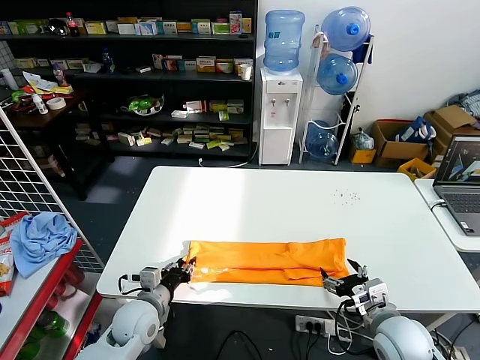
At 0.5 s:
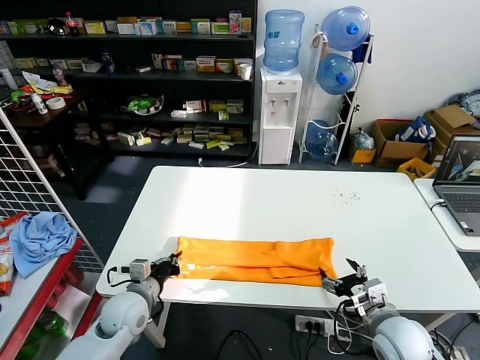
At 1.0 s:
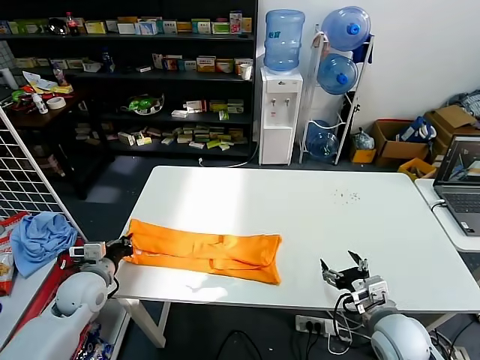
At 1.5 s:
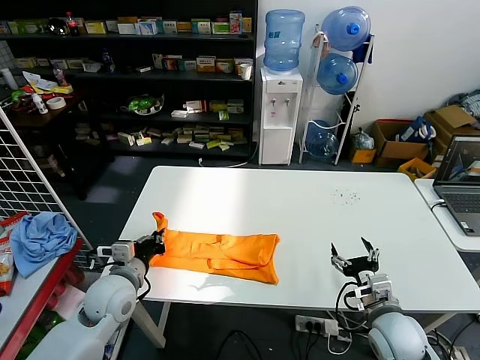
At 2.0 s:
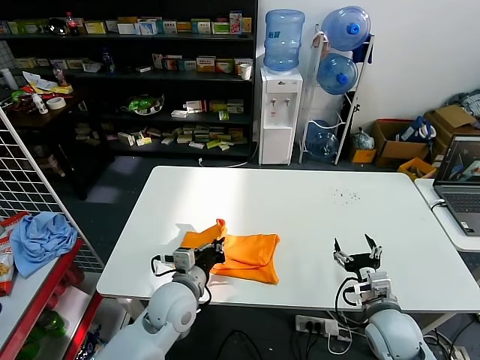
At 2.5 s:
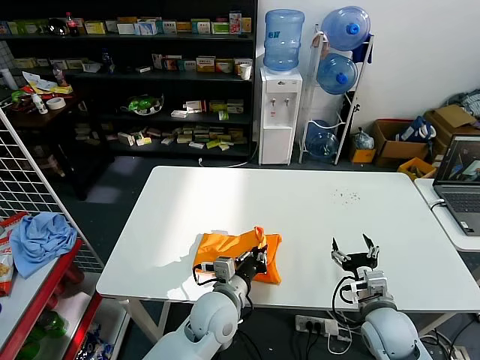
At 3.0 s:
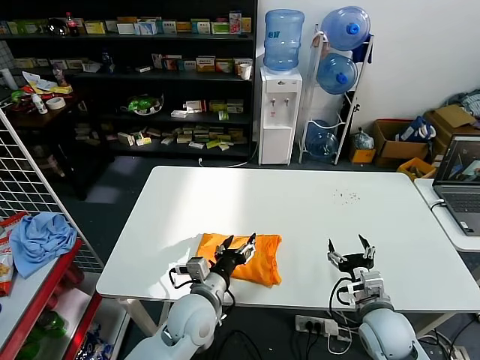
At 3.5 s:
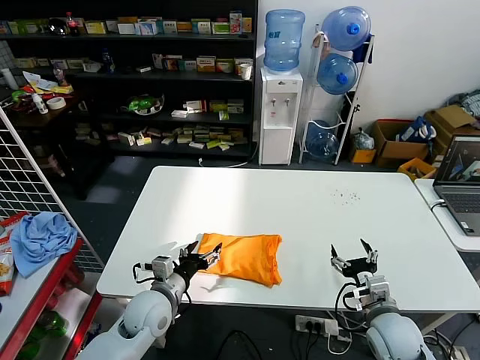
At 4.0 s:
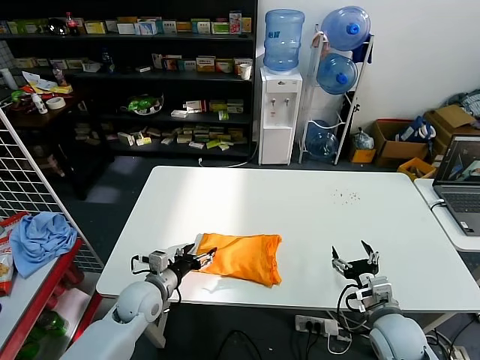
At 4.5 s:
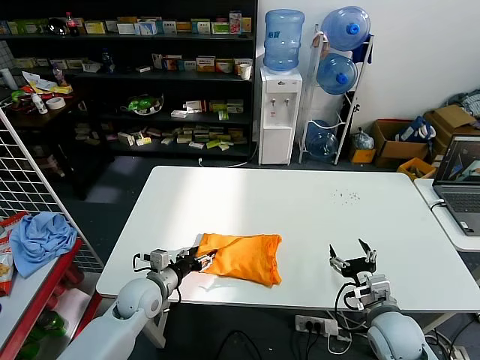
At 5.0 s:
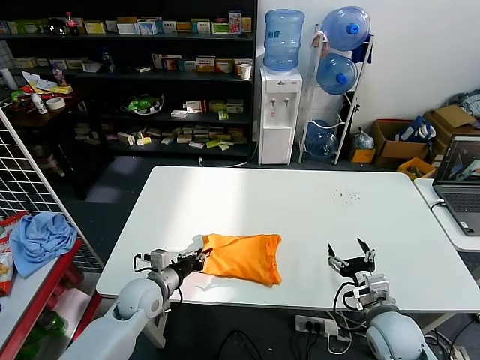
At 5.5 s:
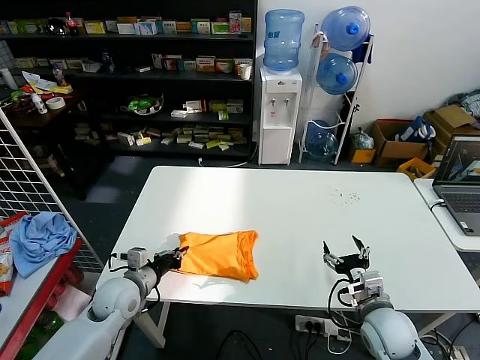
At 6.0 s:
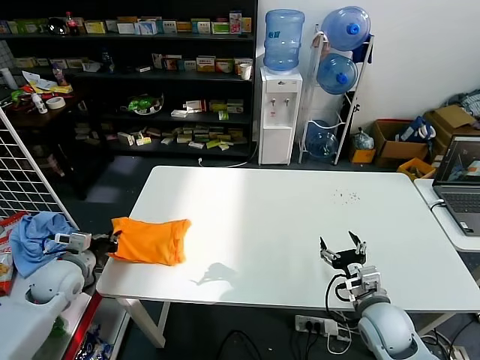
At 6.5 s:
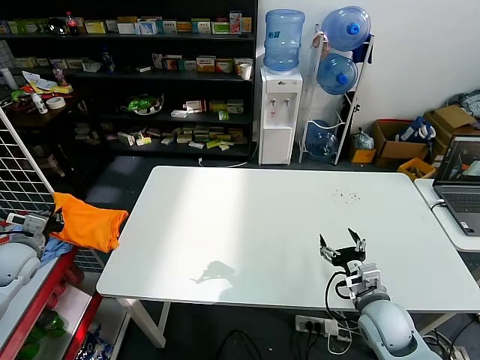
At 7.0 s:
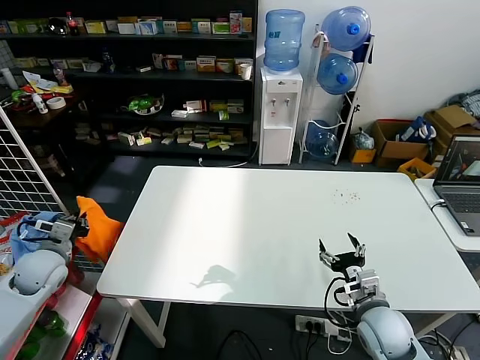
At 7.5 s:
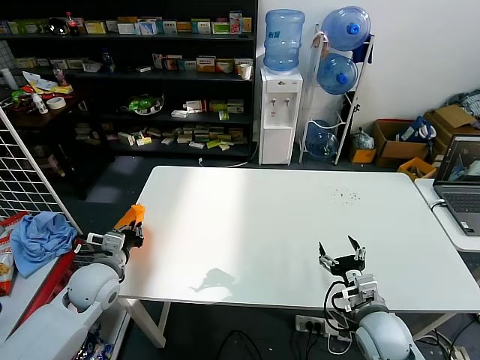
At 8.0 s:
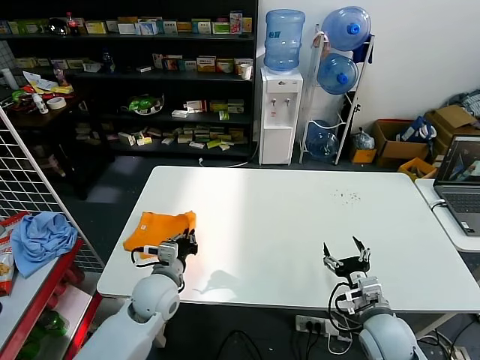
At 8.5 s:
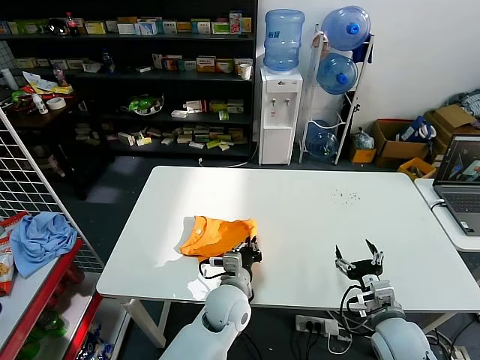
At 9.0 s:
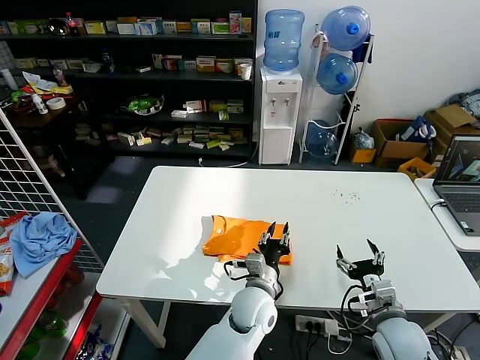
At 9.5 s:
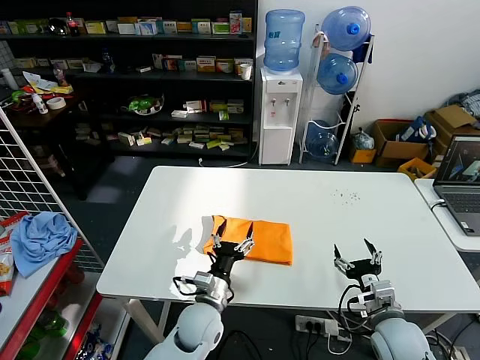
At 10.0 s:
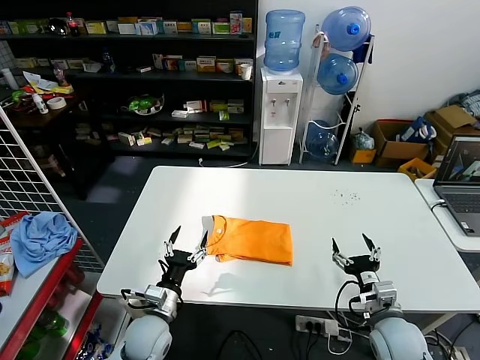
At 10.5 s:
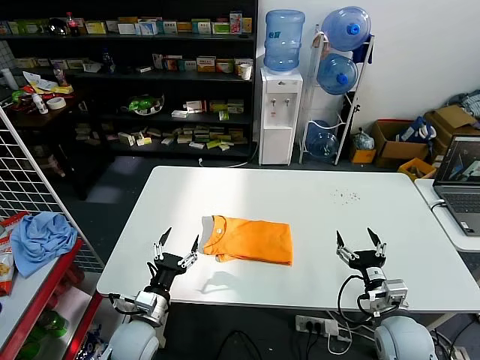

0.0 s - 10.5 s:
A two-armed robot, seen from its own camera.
Task of the whole recording: fold and organize the clothes.
Step, 0.5 s - 2.5 s: use the left gripper to drag the left edge of the fabric to the left and folds it over the right edge.
Step, 3.0 s - 9.0 s: Flip the folded clothes over with left gripper.
0.0 s - 2.0 s: The left gripper heads to the right and upward, covering approximately 10 cm, and closes its fingers.
2.0 s - 4.0 s: The left gripper shifts about 10 cm to the left and downward, and opens its fingers.
4.0 s - 6.5 s: The left gripper travels to the left and upward by some 30 cm, and closes up.
6.5 s - 8.5 s: The left gripper moves to the right, approximately 40 cm.
8.5 s - 10.5 s: The left gripper goes approximately 20 cm to the left, and opens.

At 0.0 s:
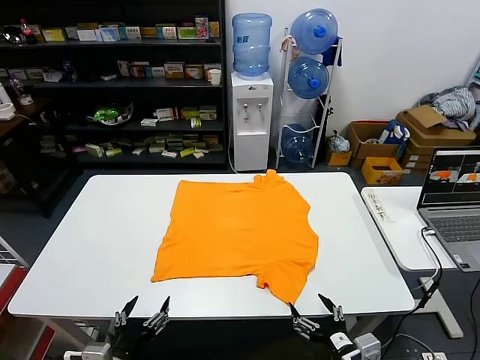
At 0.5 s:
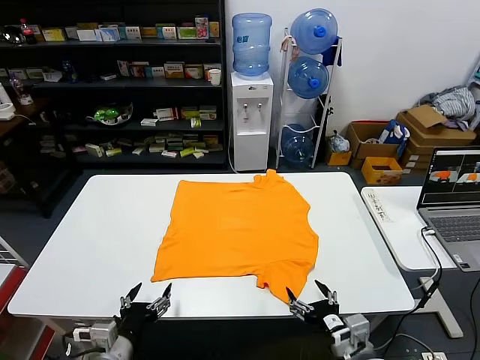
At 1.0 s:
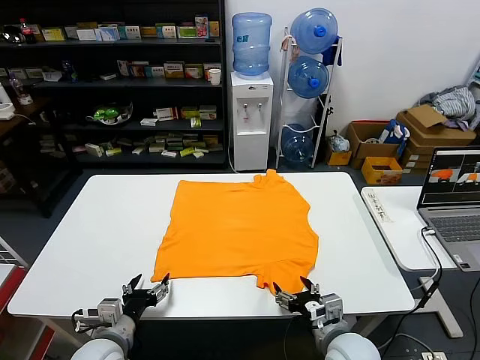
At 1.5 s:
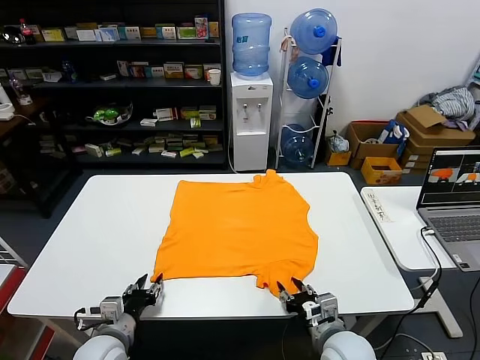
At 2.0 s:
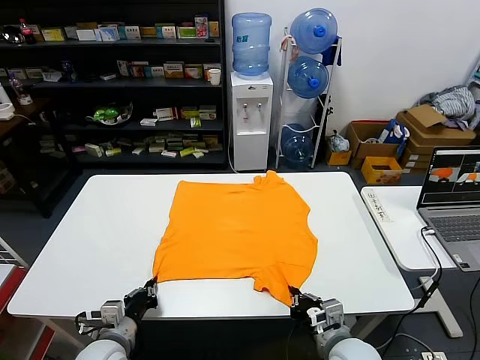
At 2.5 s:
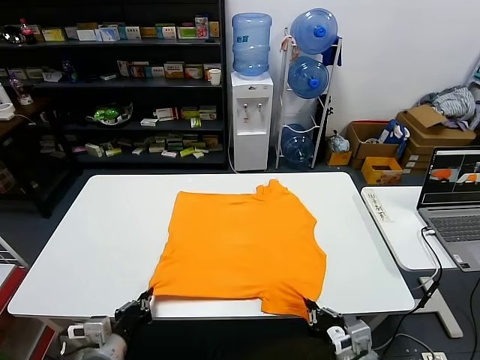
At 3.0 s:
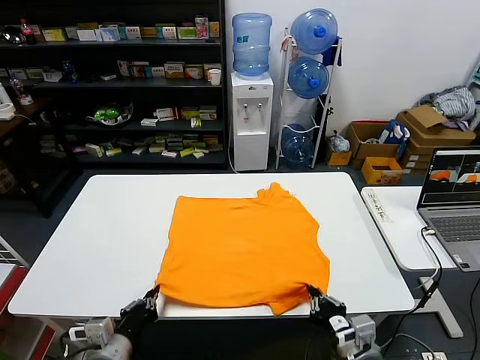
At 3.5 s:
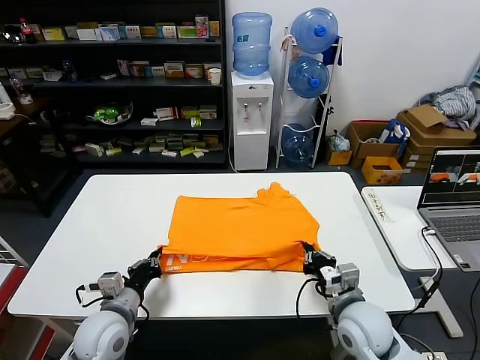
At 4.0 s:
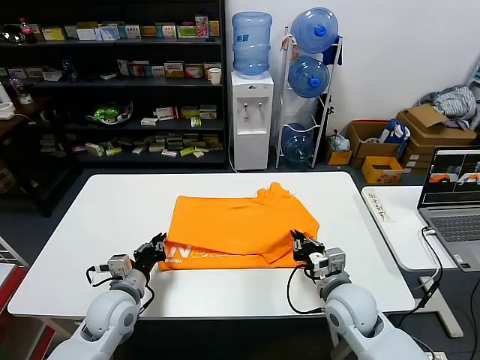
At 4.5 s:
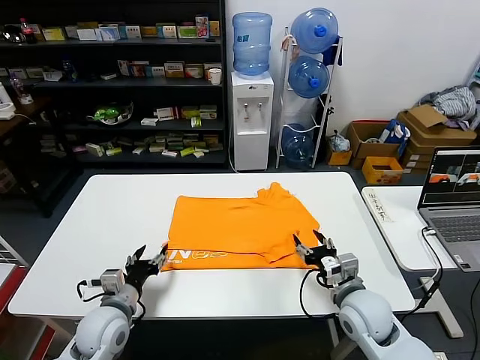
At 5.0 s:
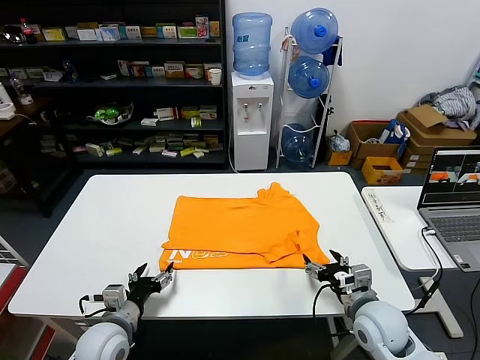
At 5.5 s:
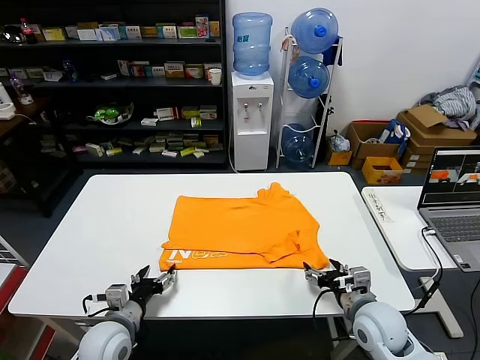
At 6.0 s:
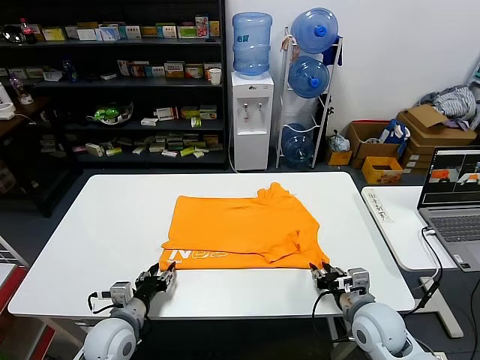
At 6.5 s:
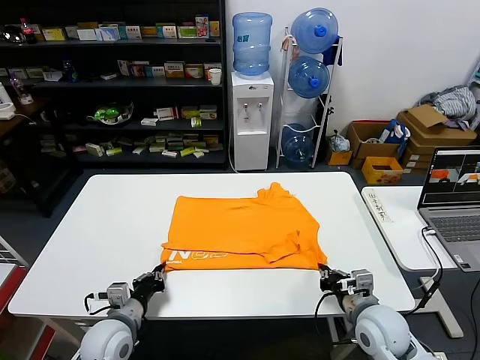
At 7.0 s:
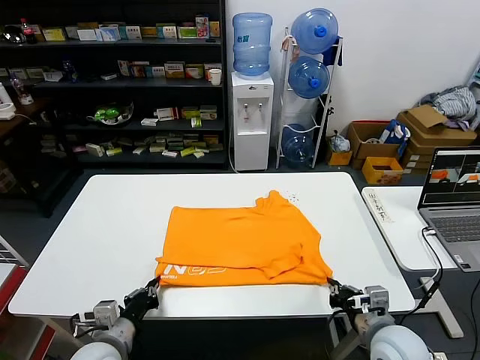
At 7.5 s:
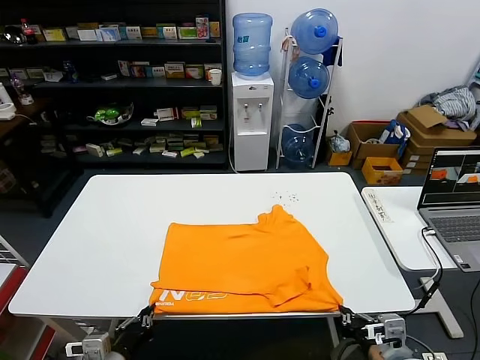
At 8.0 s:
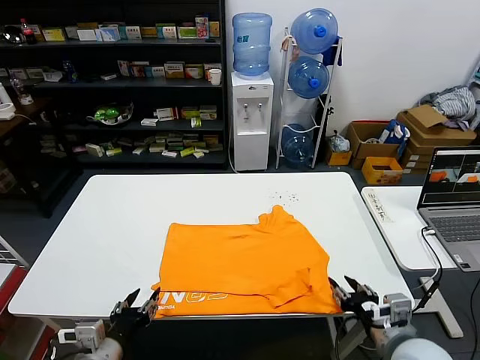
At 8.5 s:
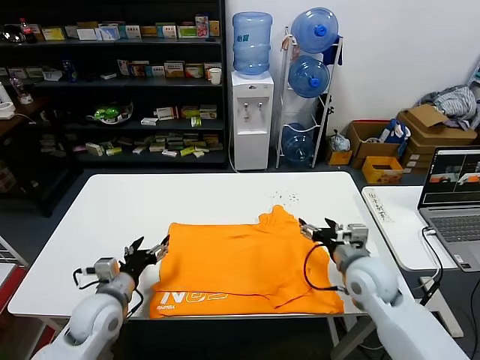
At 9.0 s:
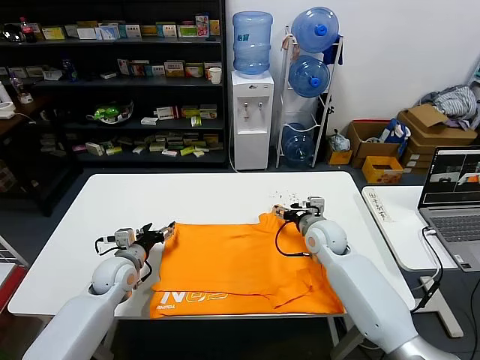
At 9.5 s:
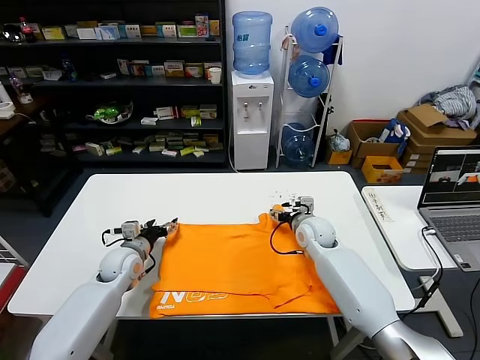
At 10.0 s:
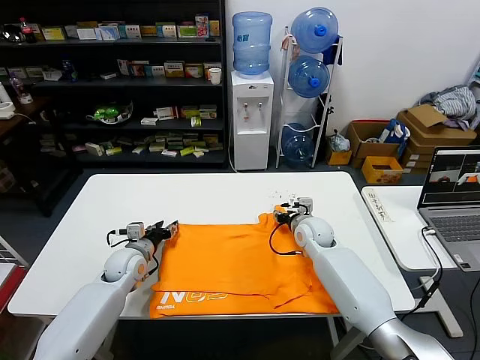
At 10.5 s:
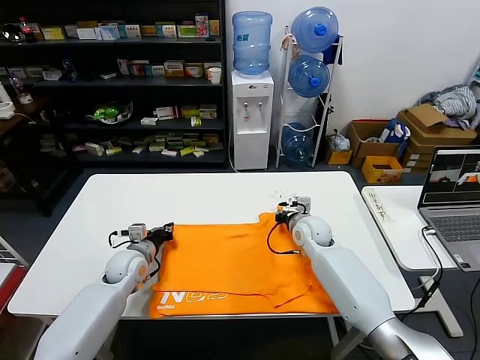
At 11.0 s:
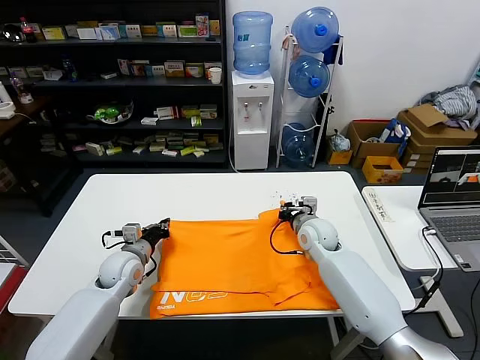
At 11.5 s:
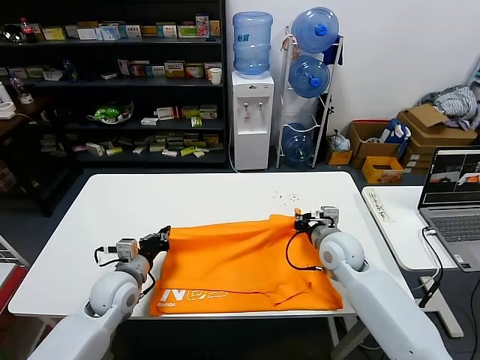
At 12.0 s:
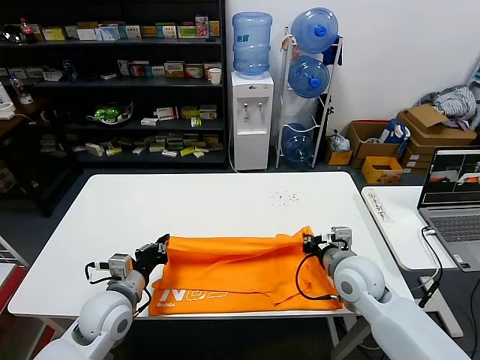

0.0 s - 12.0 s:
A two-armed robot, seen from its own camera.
Task of the whole recording: fold and organize the clothes.
Step, 0.0 s - 2.0 s: use both grippers simultaneously to clamp the lower edge of the clothing fabric.
Step, 2.5 s - 4.0 s: use both grippers to drag the lower edge of the fabric forward and fold it over the upper edge.
Step, 4.5 s - 7.5 s: Drag the clothes downward with both gripper.
Step, 8.0 s - 10.5 s: use both grippers simultaneously to clamp the upper edge of the clothing fabric.
2.0 s - 4.0 s: The two grippers go some 10 cm forward.
4.0 s - 6.0 s: The left gripper ends up roughly 5 cm from where it was, and opens up. Meanwhile the right gripper shifts about 5 cm to the right, and opens, then closes once more.
6.0 s - 8.0 s: The grippers both shift backward and upward by about 15 cm. The right gripper closes, then reopens, while the left gripper closes, then opens again.
8.0 s - 10.0 s: Both grippers move forward, approximately 30 cm. The right gripper opens and closes again.
10.0 s - 12.0 s: The two grippers go roughly 15 cm backward and upward. The left gripper closes up; the right gripper closes.

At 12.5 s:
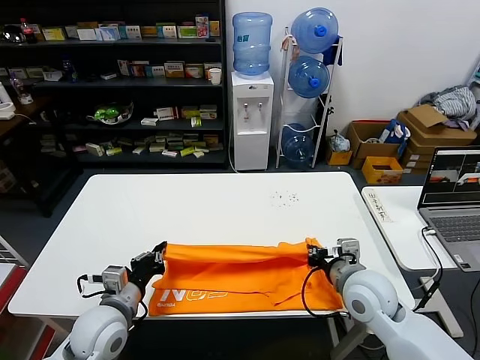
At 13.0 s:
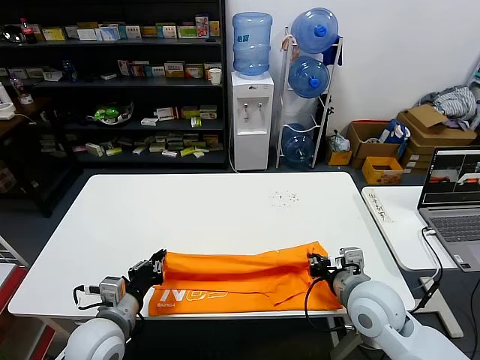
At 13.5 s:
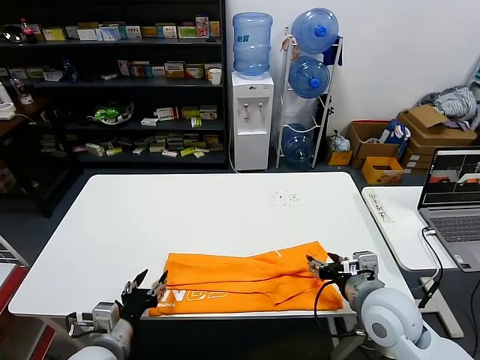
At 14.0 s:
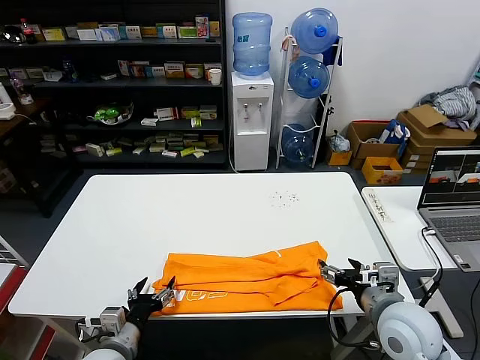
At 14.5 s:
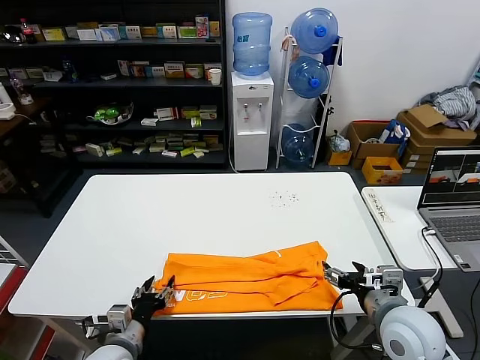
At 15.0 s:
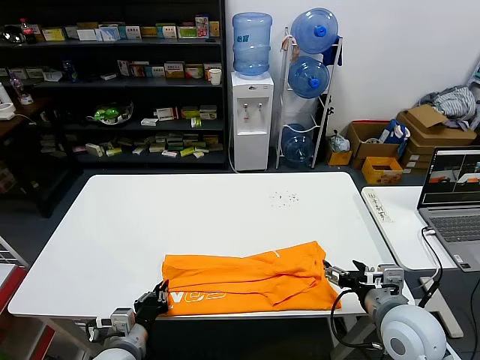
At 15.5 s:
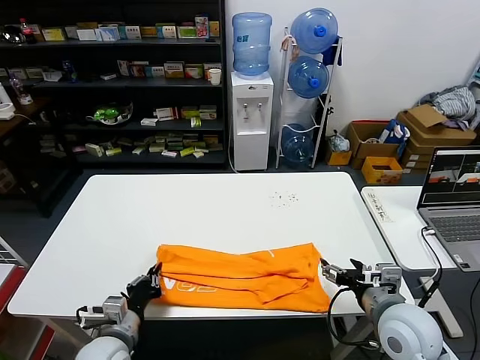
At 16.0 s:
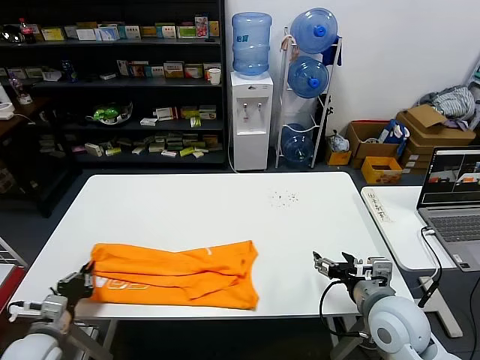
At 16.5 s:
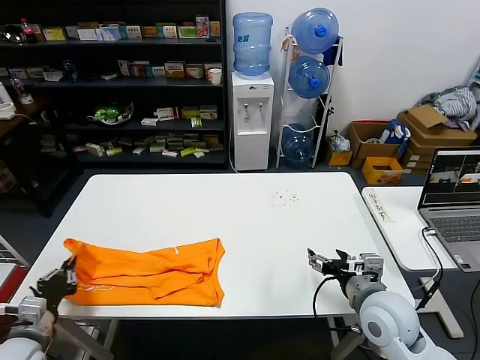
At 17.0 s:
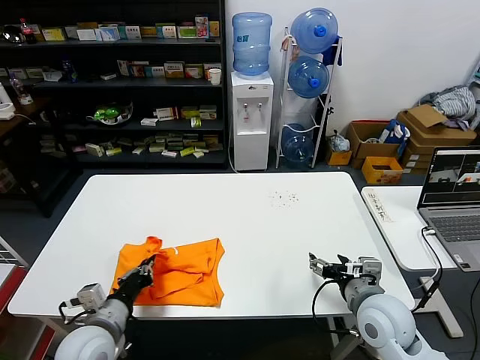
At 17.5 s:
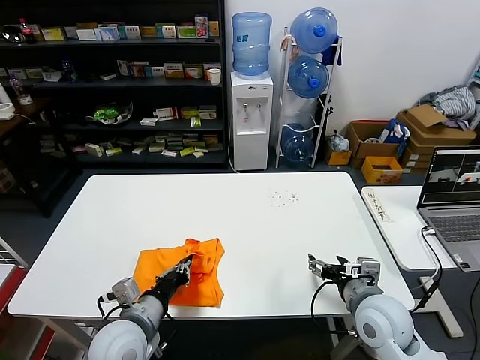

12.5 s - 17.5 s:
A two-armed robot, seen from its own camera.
Task of the whole recording: fold and organize the clothes.
Step, 13.5 s - 15.0 s: use the left gripper to clamp the left edge of the fabric.
12.5 s - 15.0 s: The right gripper shifts approximately 5 cm backward, and opens up; the left gripper is displaced downward and backward by about 10 cm, and opens, then closes once more.
15.0 s - 17.5 s: The left gripper shifts approximately 10 cm upward, and travels to the left and back again, roughly 20 cm each way. The right gripper ends up about 5 cm from where it was.
